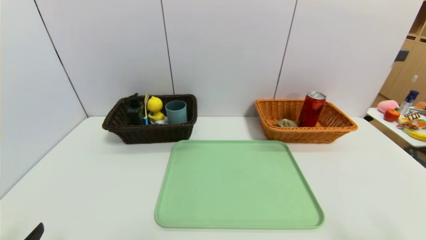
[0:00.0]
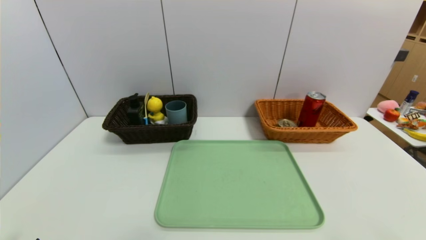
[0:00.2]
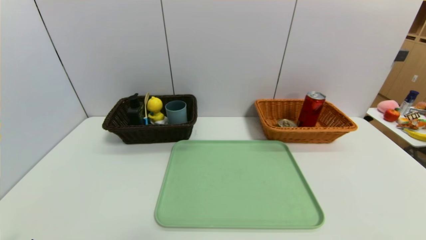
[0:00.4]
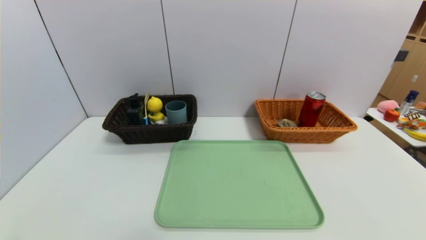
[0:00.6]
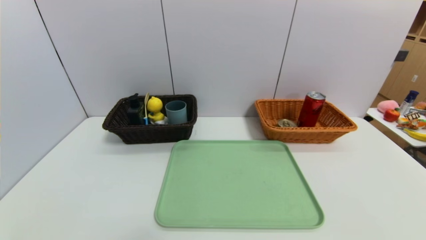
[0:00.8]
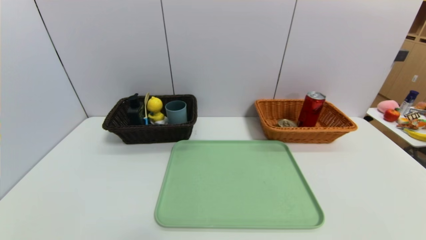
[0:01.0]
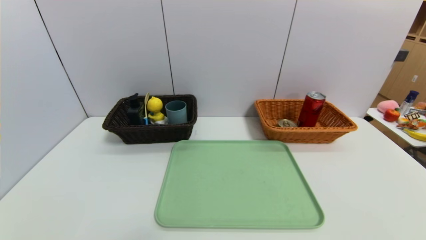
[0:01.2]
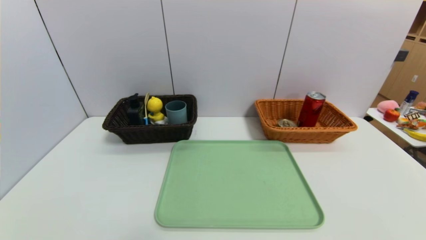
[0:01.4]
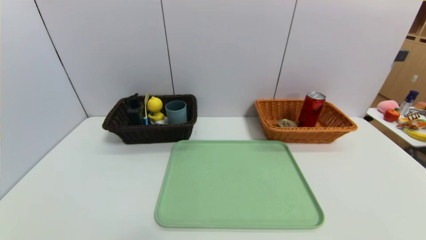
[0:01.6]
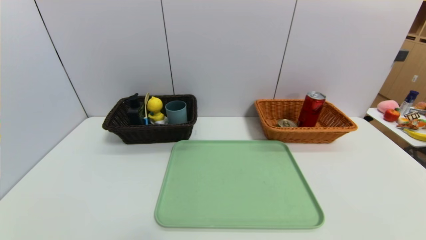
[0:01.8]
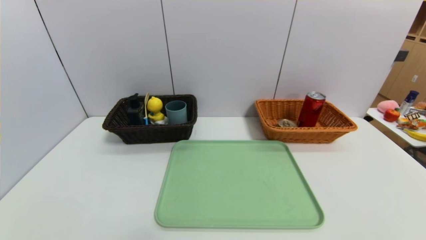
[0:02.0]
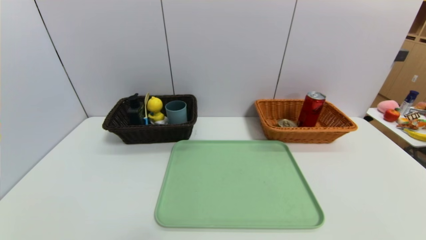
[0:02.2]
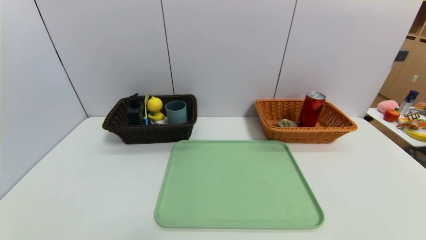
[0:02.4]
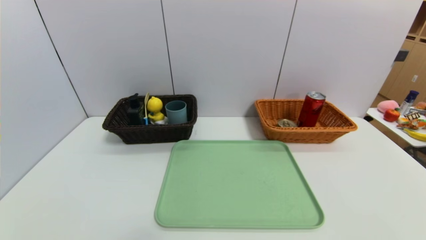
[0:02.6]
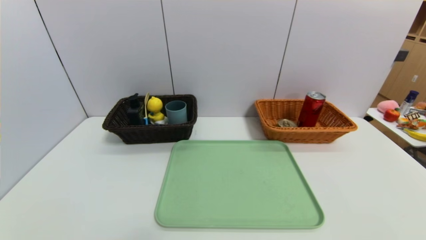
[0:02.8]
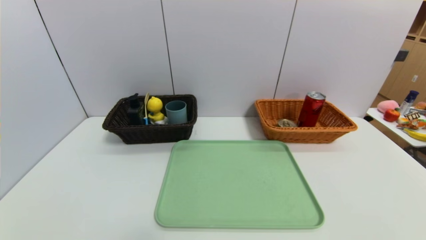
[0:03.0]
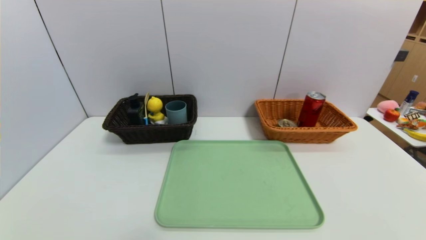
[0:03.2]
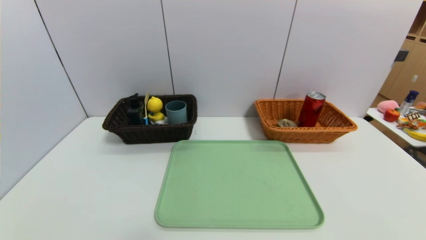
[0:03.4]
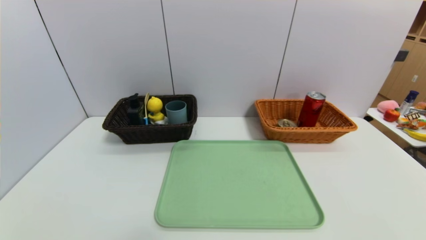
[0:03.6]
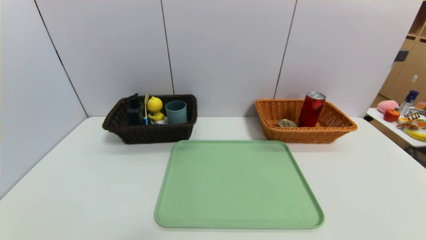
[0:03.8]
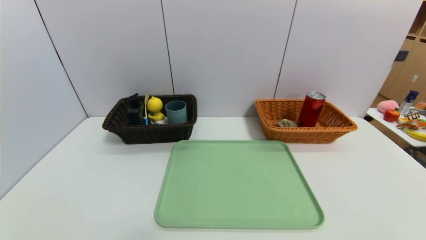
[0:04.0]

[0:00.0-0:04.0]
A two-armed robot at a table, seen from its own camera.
Task of the whole recording: place the food in the right basket with the right gripper, and place the non food items in the left basket with the left gripper.
0:02.6 to 0:04.0: Both grippers stay put.

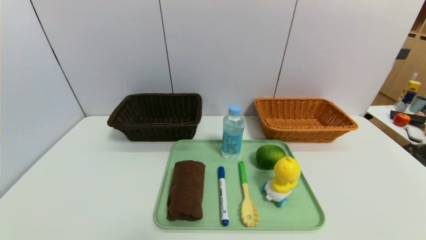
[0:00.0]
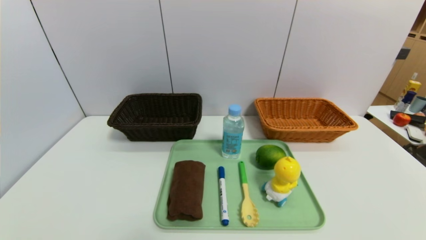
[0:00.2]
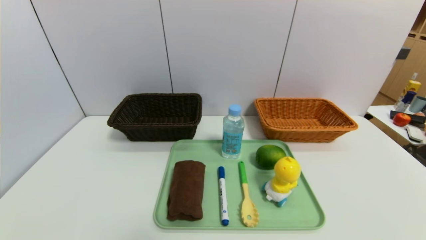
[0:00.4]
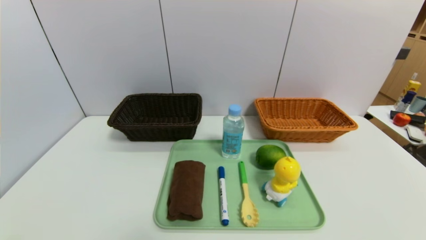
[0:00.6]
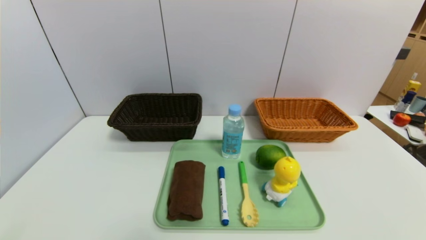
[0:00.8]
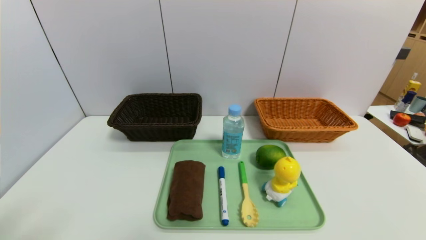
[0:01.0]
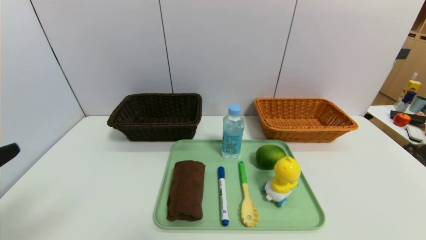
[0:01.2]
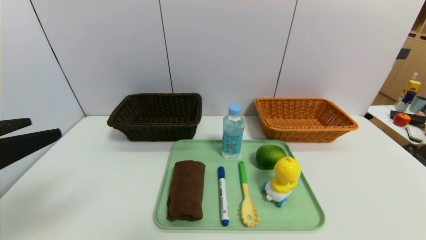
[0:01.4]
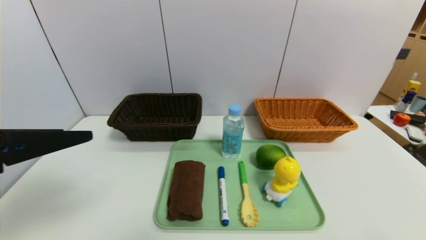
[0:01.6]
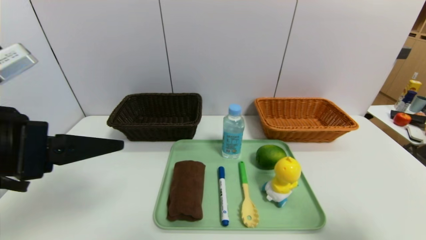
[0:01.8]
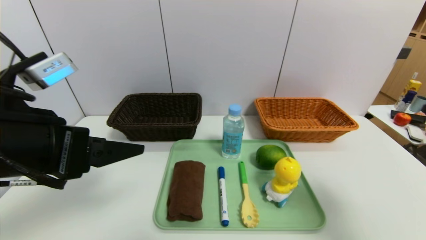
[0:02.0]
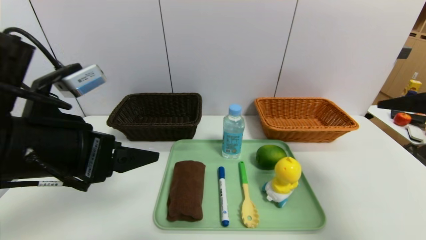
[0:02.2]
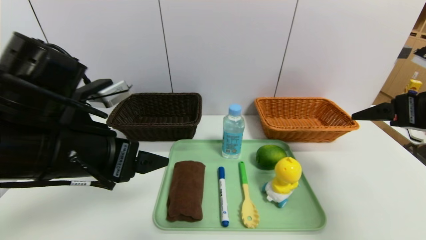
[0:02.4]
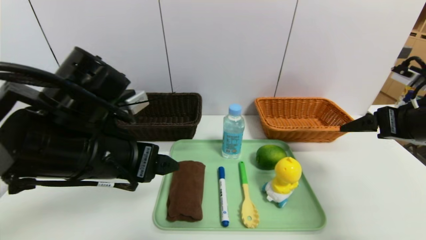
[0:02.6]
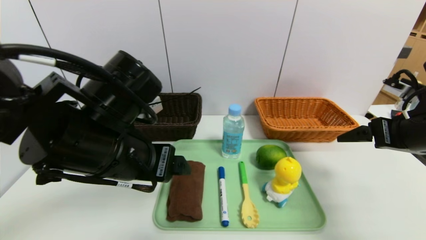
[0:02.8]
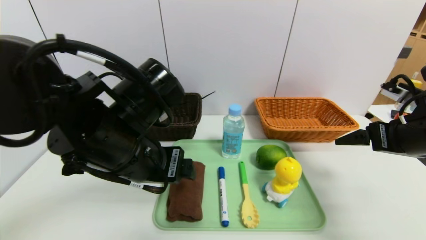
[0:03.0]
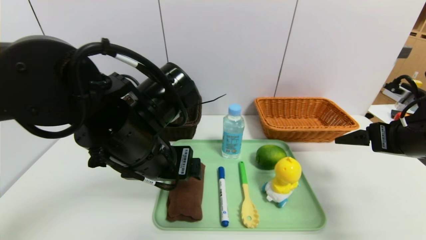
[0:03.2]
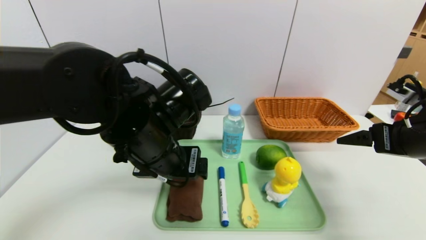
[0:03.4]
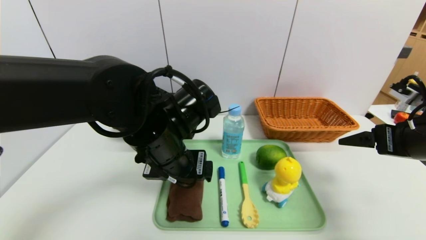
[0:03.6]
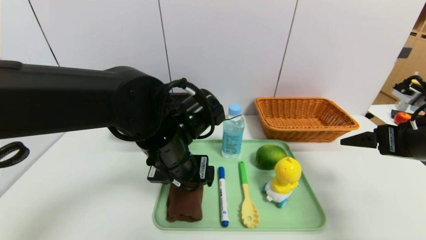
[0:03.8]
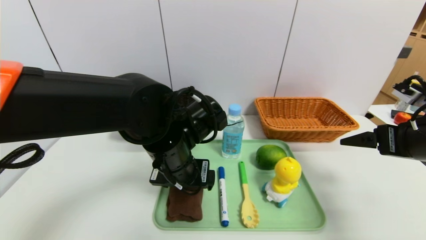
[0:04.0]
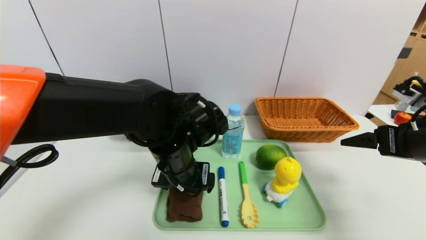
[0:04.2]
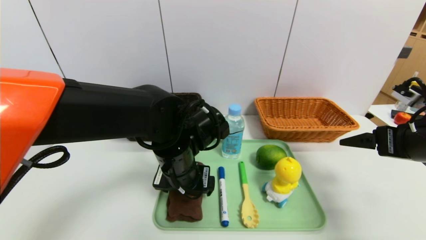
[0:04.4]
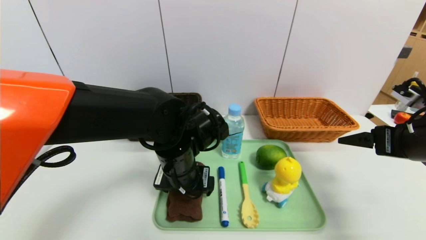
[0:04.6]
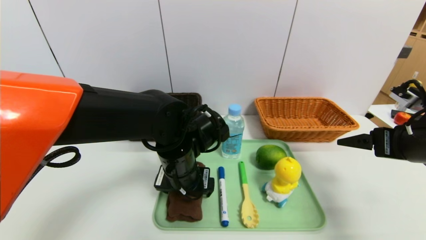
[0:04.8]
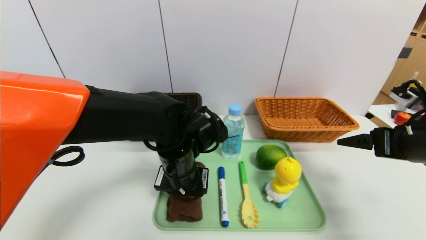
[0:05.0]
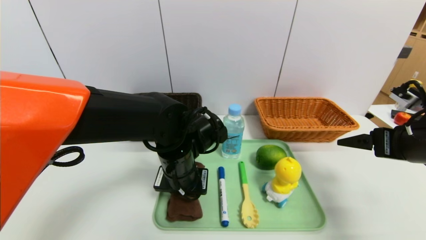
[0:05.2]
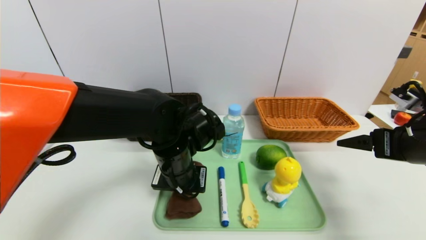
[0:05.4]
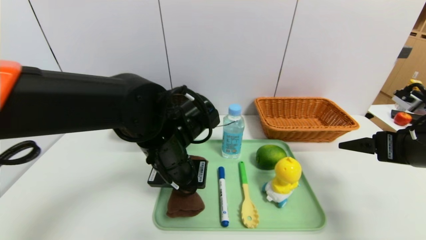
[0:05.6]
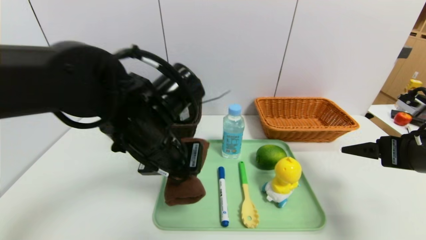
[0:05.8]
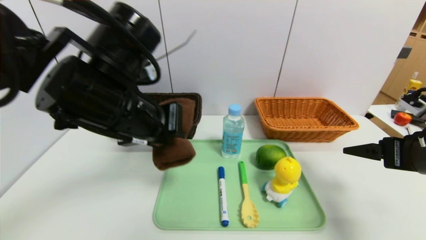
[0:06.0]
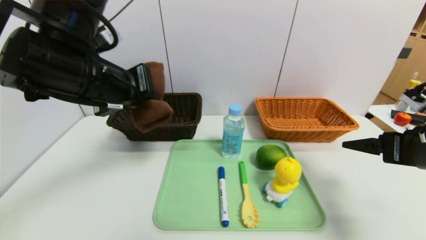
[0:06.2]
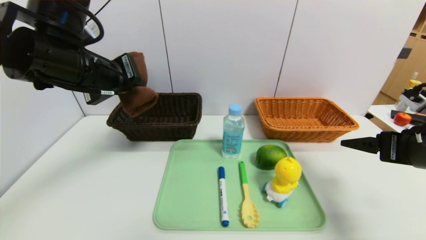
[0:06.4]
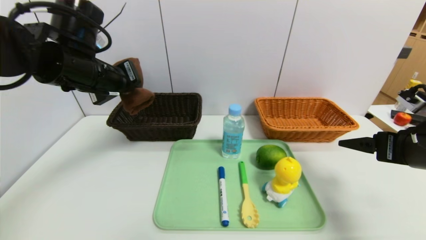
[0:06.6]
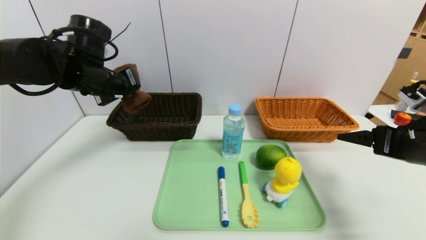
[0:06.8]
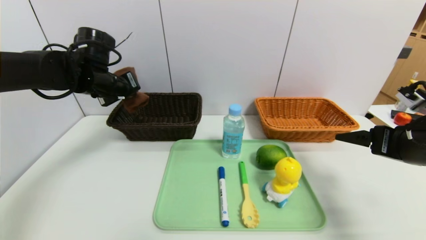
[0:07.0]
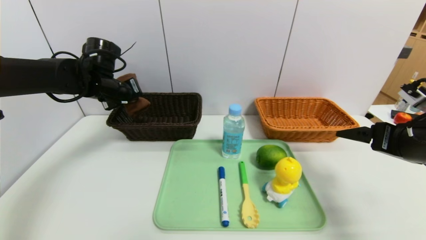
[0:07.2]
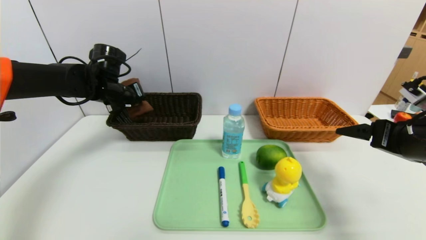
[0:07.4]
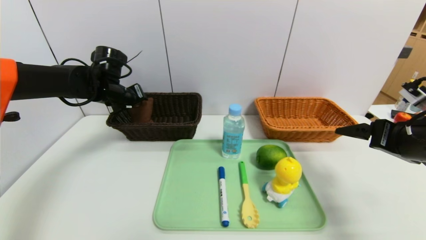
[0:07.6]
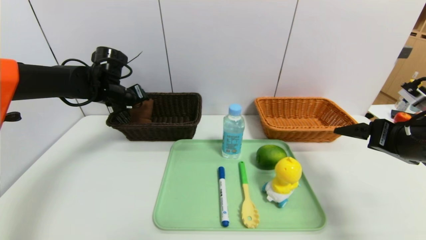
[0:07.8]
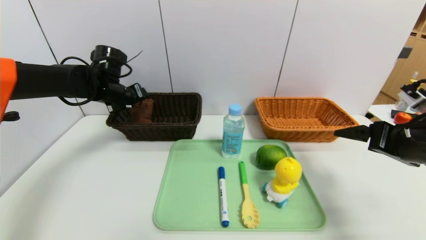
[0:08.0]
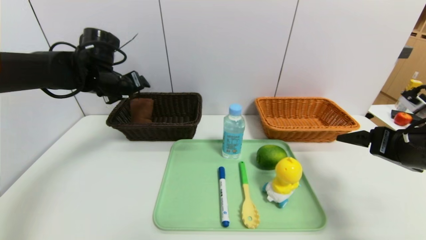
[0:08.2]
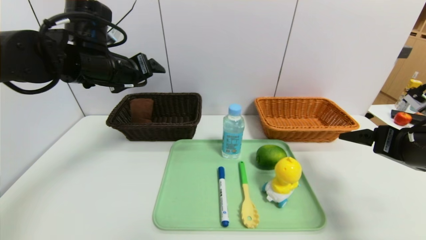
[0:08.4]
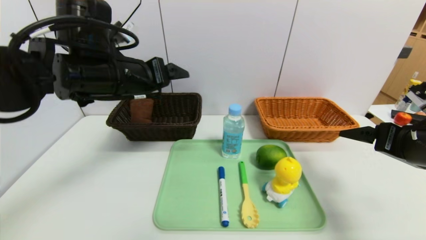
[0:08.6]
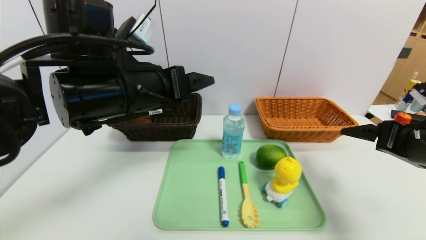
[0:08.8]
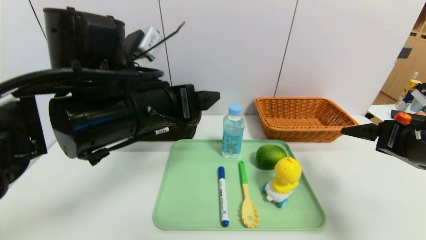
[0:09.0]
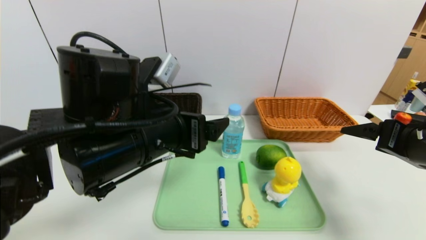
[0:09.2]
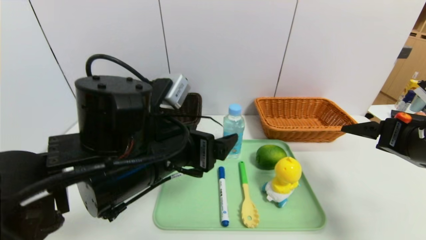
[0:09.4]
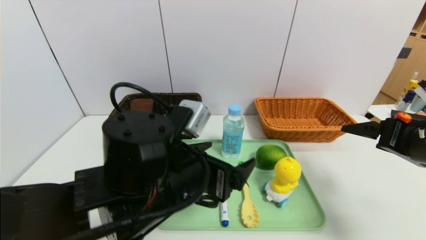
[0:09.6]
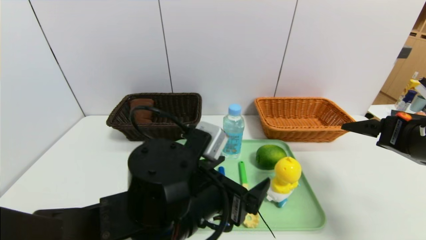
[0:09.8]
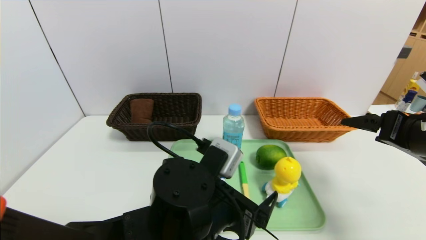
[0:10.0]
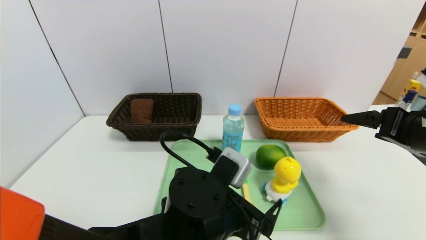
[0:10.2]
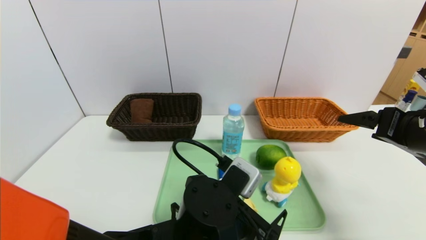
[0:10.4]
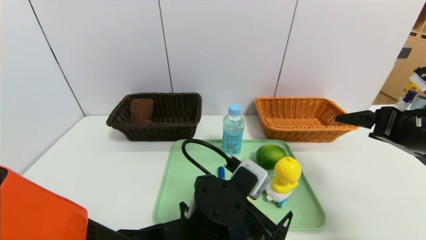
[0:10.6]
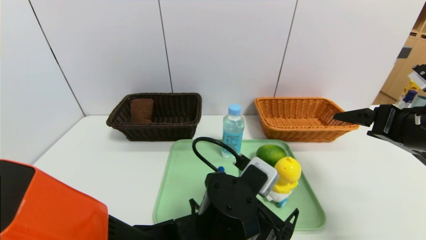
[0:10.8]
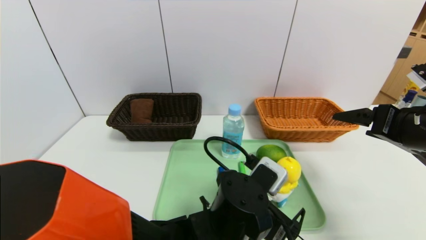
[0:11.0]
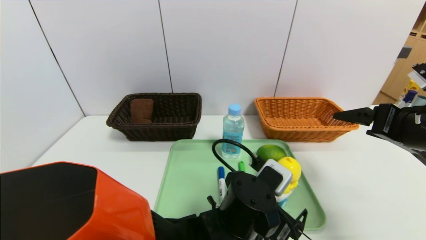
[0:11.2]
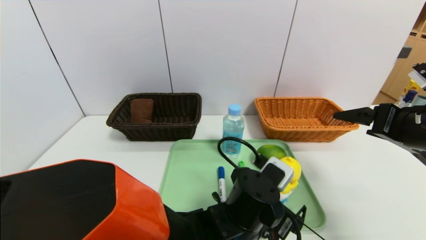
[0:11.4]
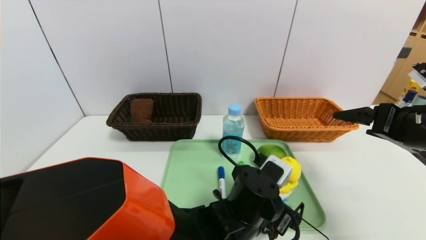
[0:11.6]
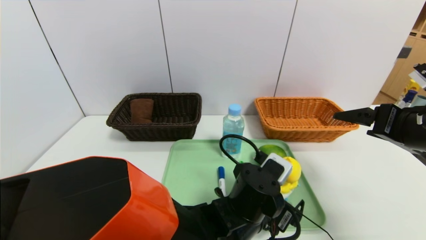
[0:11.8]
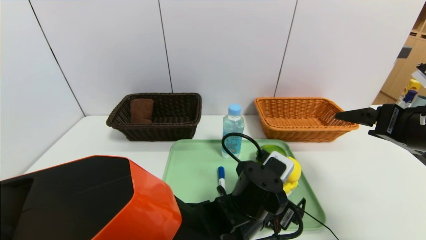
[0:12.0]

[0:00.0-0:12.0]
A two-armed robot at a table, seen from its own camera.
Task of the whole recording: place the food in the right basket with the right gripper, and place the non food items in the left basket with the left gripper.
Step, 0:00.0 to 0:08.2: Grasp the brown towel and put it in the left basket.
0:00.0 to 0:01.6: The left gripper heads upward and forward, covering roughly 25 cm.
0:01.6 to 0:03.0: The right gripper goes roughly 20 cm forward; the left gripper is displaced to the right and forward by approximately 15 cm.
0:03.0 to 0:04.4: The left gripper moves downward, forward and to the right, about 10 cm.
0:04.4 to 0:06.0: The left gripper moves upward and to the left, roughly 15 cm, and closes.
0:06.0 to 0:07.6: The left gripper is displaced forward, to the left and downward by some 25 cm, and opens up.
0:07.6 to 0:09.0: The left gripper goes about 25 cm backward and to the right.
0:09.0 to 0:10.4: The left gripper shifts some 20 cm downward and to the right.
0:10.4 to 0:12.0: The left gripper is displaced to the right by roughly 5 cm.
